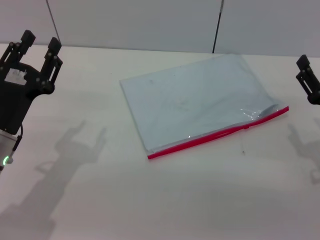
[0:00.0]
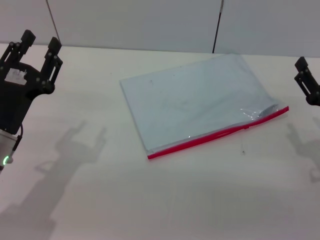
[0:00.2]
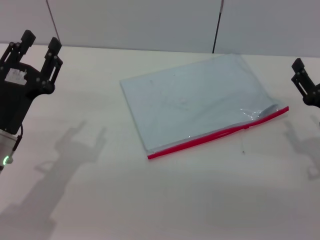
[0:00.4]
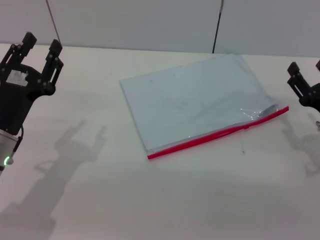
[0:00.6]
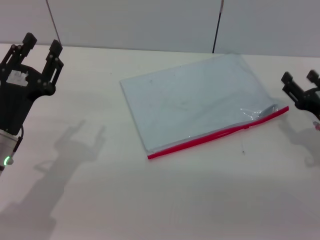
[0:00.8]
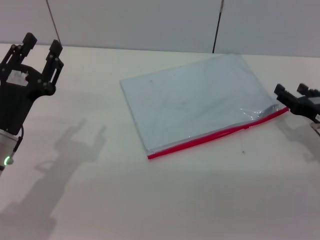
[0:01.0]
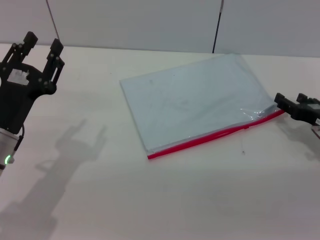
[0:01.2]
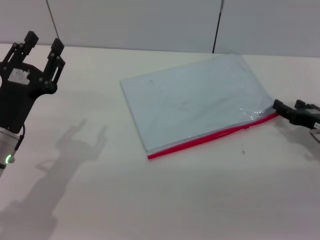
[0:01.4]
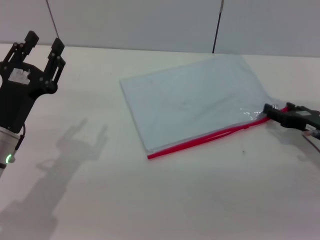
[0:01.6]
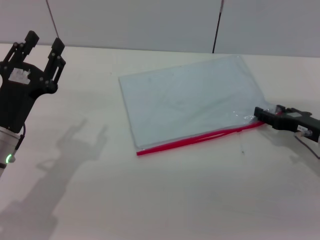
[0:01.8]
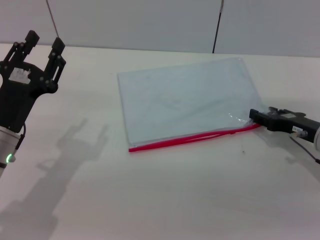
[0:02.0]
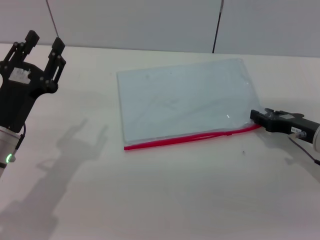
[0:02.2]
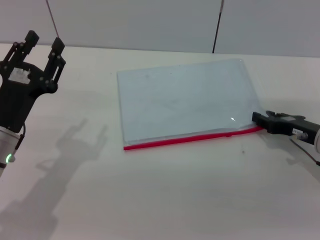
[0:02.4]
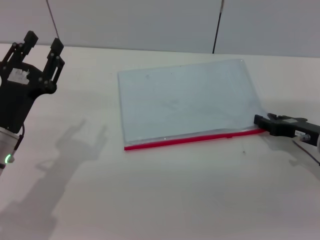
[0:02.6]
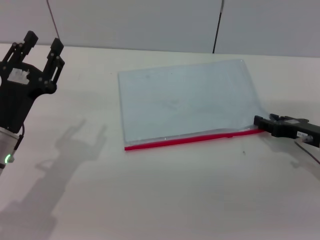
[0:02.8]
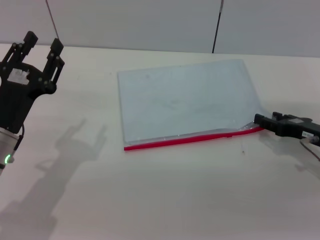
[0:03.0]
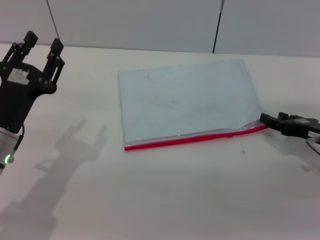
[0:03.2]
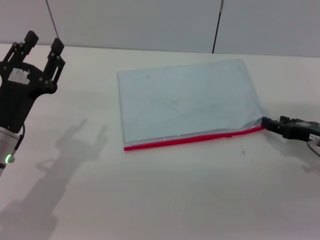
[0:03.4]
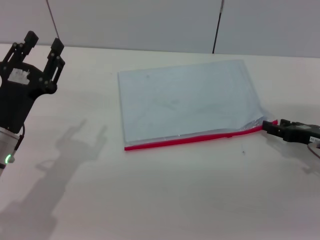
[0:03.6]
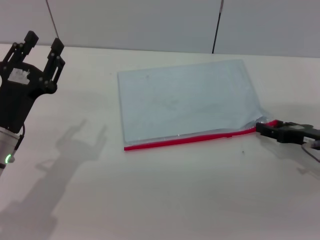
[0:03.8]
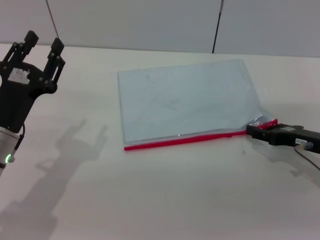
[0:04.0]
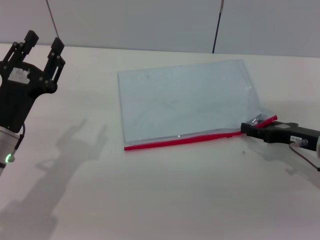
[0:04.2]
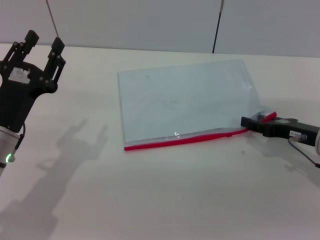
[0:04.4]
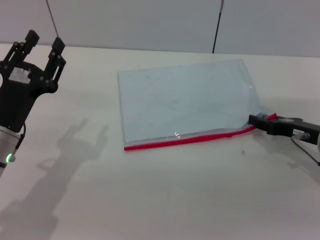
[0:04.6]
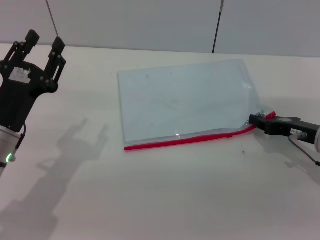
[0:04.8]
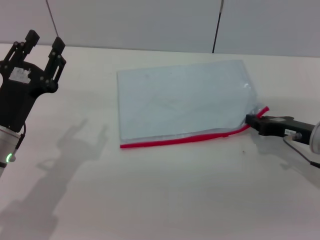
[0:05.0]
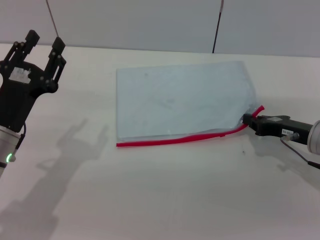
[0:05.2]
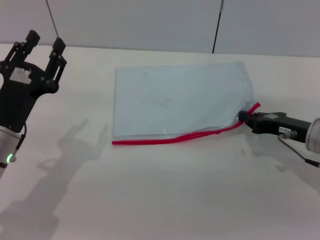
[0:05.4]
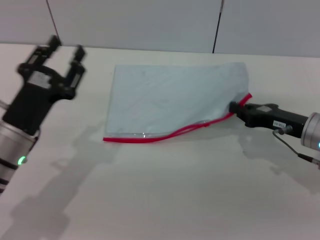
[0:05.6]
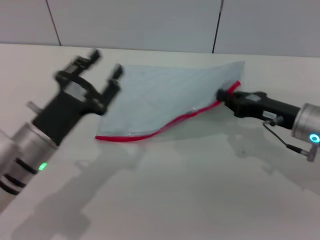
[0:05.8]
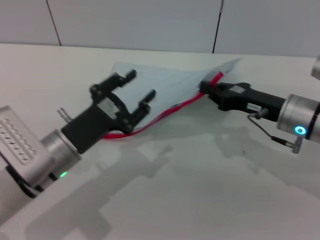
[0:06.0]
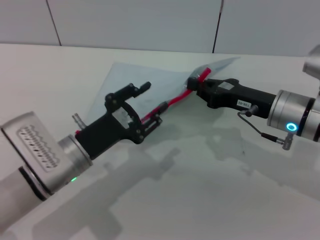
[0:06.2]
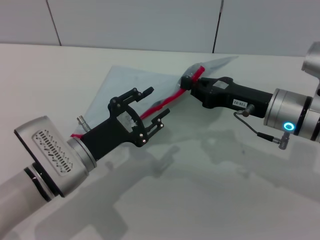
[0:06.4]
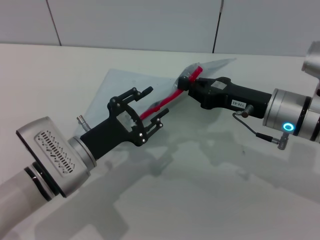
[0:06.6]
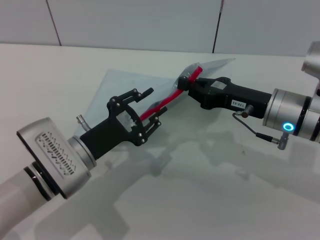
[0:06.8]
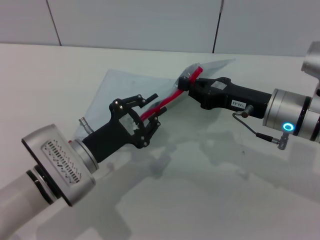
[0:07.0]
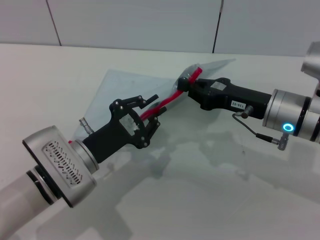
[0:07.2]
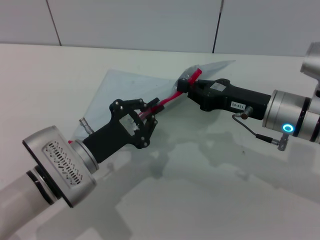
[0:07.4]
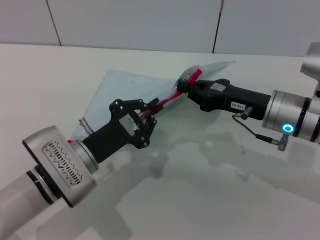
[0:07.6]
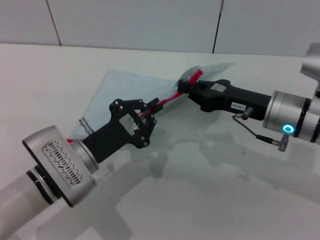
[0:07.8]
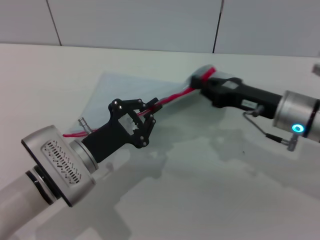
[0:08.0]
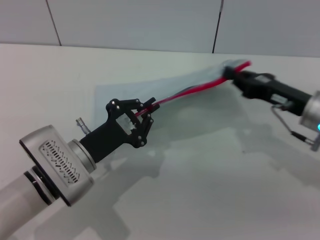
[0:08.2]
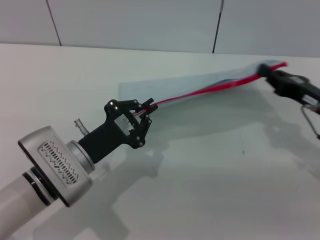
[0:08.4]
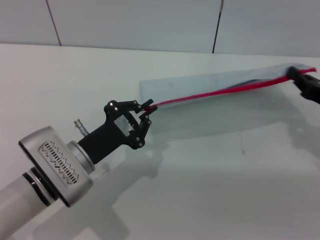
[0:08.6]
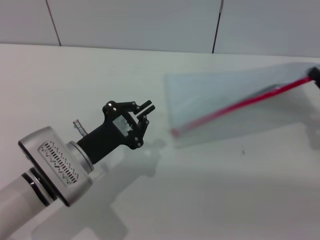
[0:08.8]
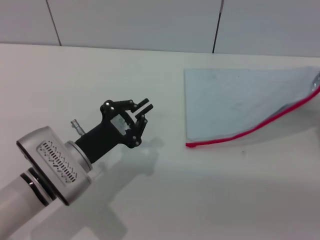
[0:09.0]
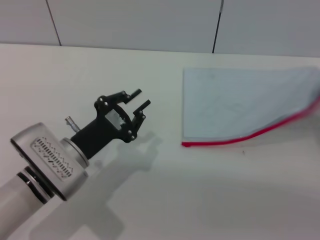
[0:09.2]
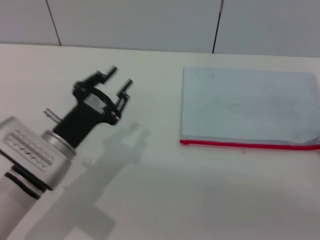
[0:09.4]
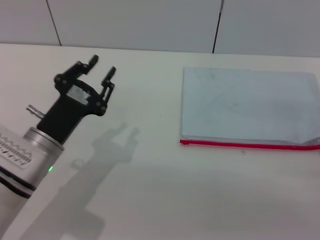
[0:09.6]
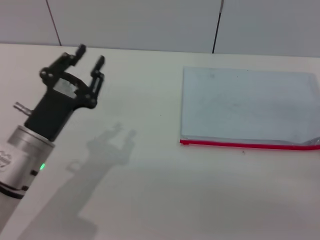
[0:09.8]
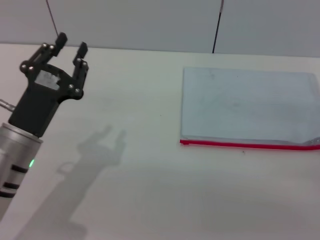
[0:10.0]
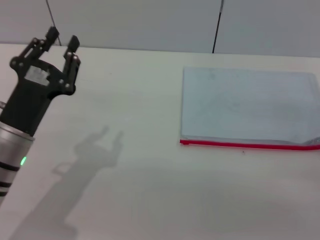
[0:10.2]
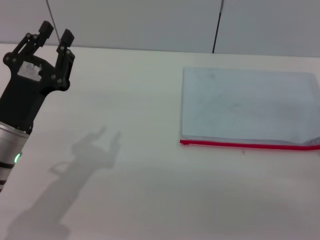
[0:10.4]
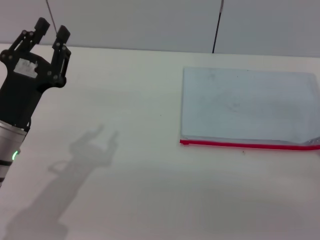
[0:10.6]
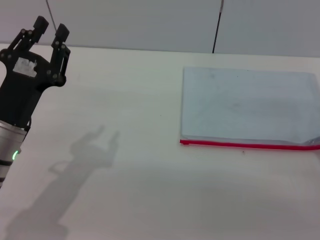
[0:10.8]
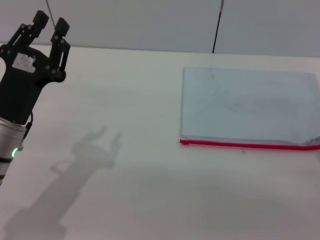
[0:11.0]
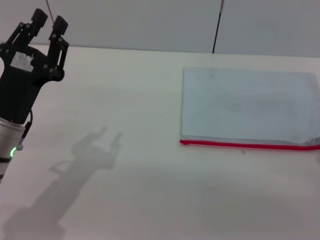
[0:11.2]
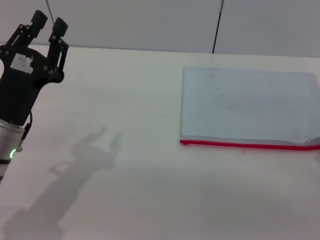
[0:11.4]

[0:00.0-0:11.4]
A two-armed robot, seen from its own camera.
Step, 0:00.0 to 0:06.0: Pick up the transparent plastic bag with the right gripper.
Step, 0:09.0 to 0:09.6: Place the transparent plastic bag.
0:00.0 to 0:01.4: The right gripper moves forward, roughly 5 cm.
0:01.4 to 0:04.2: The grippers make only small movements.
0:04.2 to 0:05.6: The right gripper closes up.
0:05.6 to 0:07.2: The left gripper goes some 5 cm to the right, and closes. Meanwhile the right gripper is displaced to the left by approximately 5 cm.
0:07.2 to 0:08.6: The right gripper is displaced to the right by some 15 cm. Meanwhile the left gripper closes its fingers.
0:08.6 to 0:10.0: The left gripper ends up approximately 5 cm from where it was, and opens its fingers, while the right gripper heads backward, covering some 10 cm, and opens.
0:10.0 to 0:11.4: The grippers move only a little.

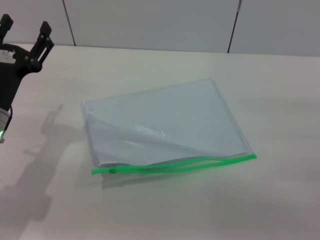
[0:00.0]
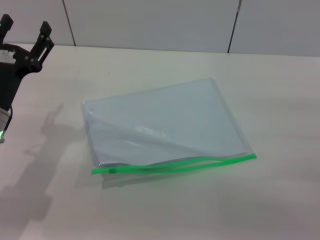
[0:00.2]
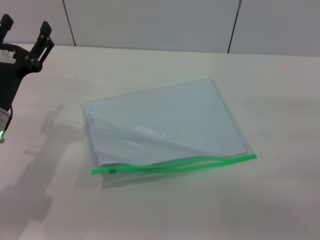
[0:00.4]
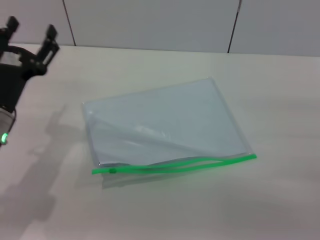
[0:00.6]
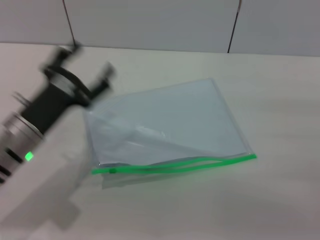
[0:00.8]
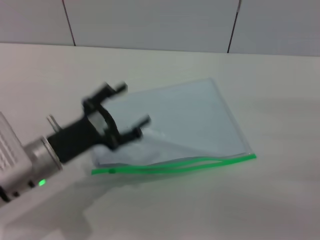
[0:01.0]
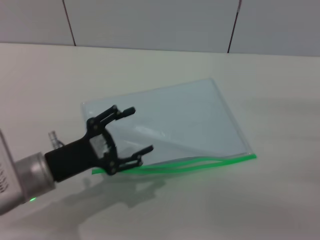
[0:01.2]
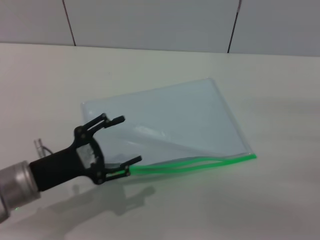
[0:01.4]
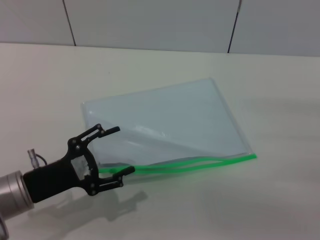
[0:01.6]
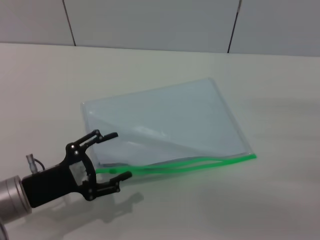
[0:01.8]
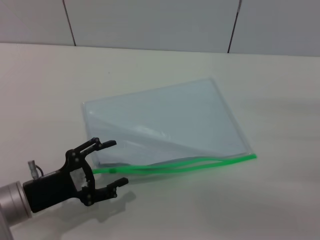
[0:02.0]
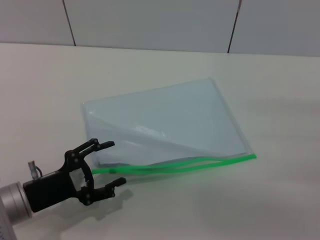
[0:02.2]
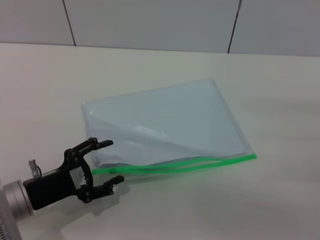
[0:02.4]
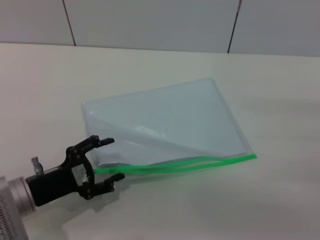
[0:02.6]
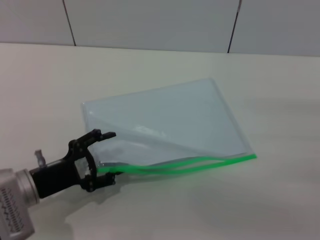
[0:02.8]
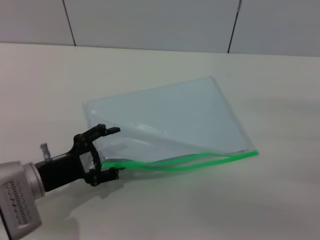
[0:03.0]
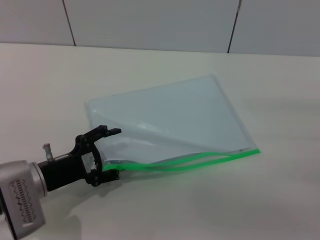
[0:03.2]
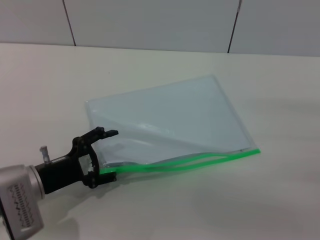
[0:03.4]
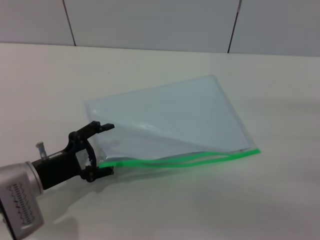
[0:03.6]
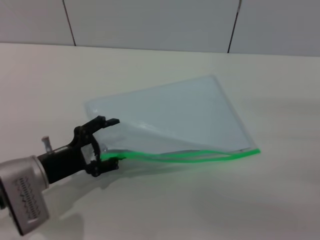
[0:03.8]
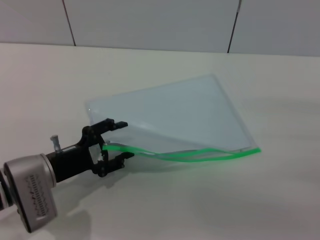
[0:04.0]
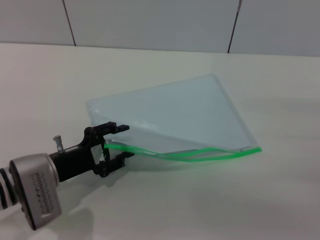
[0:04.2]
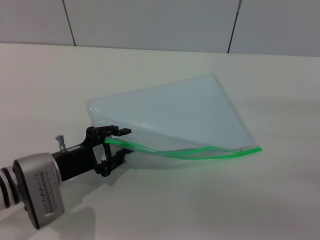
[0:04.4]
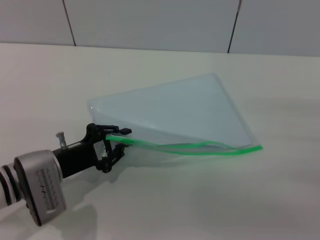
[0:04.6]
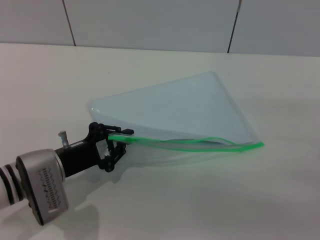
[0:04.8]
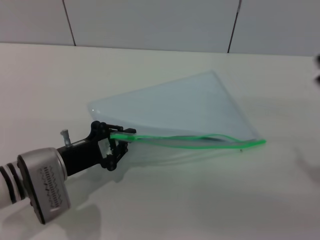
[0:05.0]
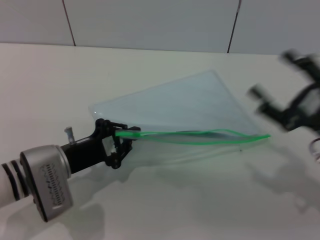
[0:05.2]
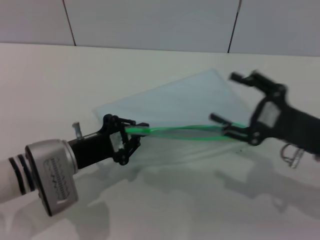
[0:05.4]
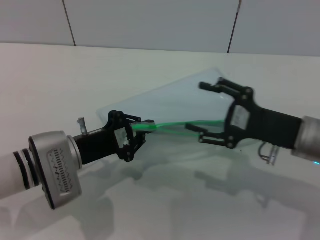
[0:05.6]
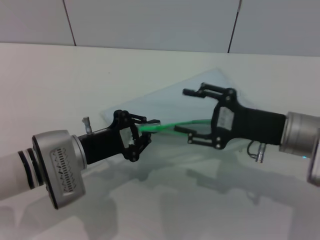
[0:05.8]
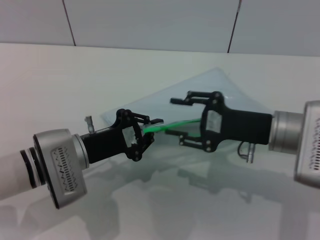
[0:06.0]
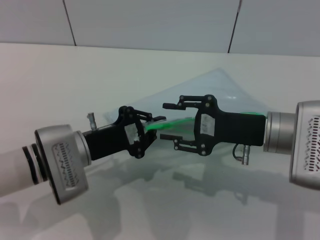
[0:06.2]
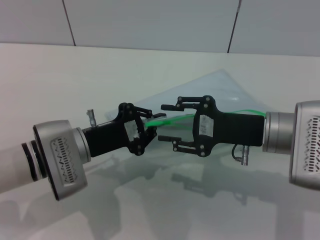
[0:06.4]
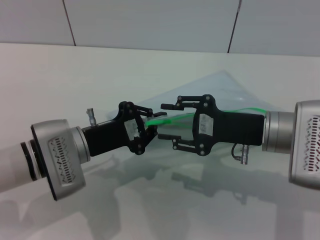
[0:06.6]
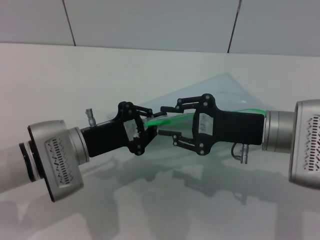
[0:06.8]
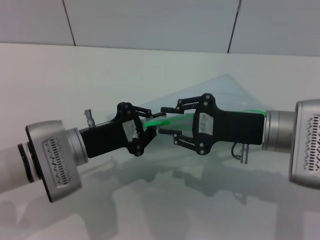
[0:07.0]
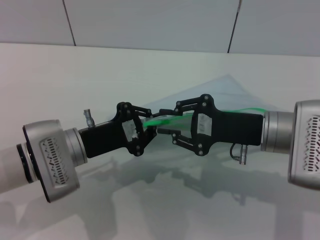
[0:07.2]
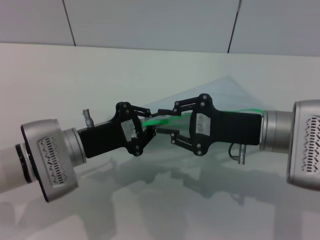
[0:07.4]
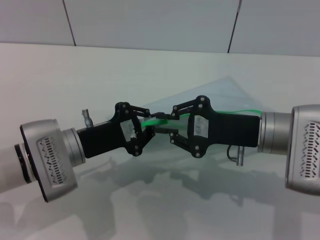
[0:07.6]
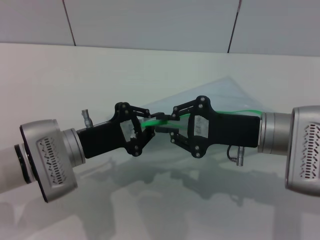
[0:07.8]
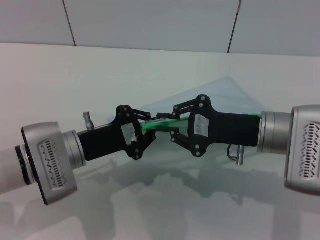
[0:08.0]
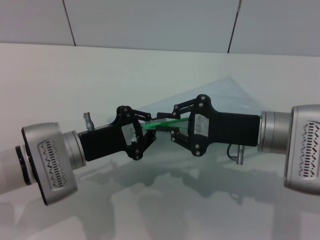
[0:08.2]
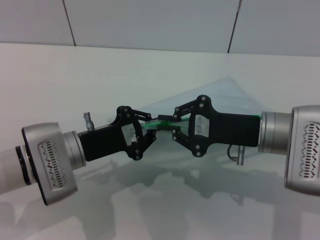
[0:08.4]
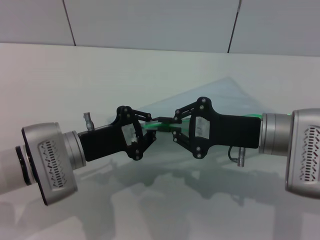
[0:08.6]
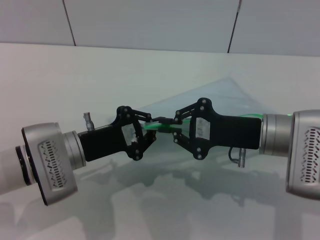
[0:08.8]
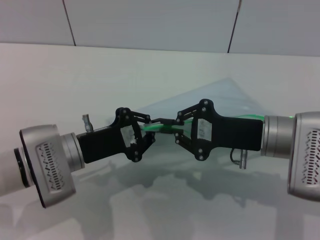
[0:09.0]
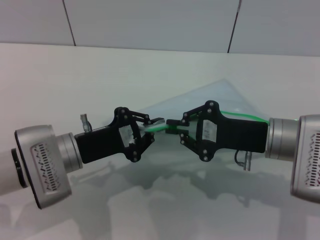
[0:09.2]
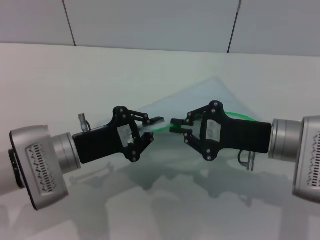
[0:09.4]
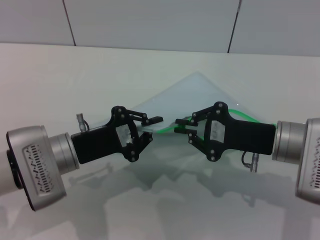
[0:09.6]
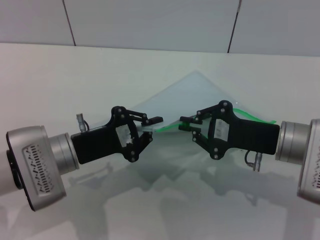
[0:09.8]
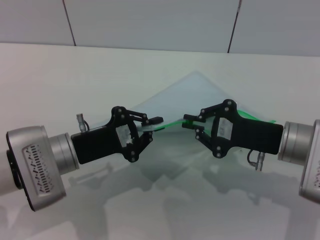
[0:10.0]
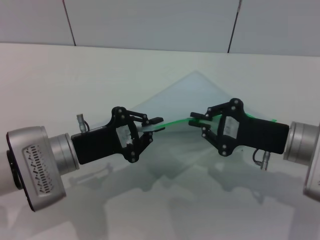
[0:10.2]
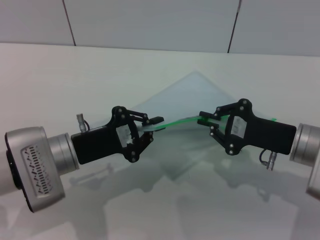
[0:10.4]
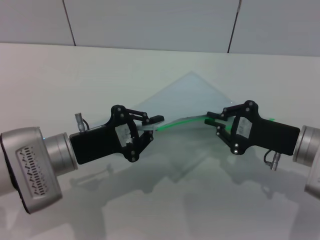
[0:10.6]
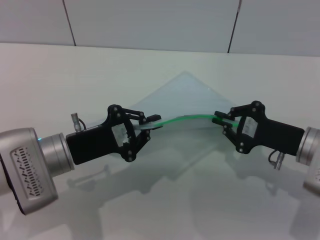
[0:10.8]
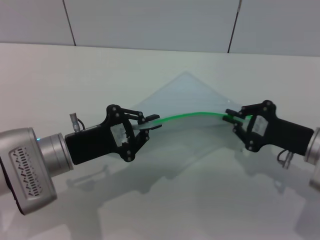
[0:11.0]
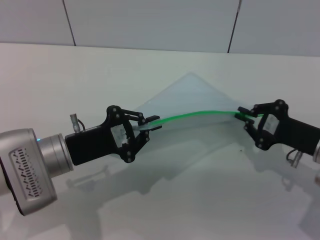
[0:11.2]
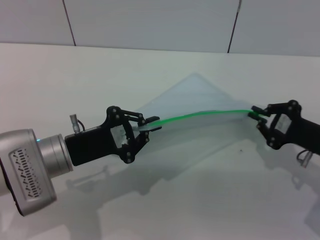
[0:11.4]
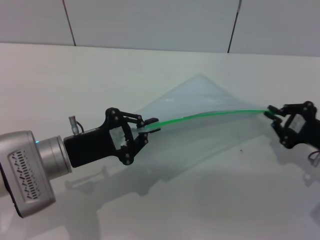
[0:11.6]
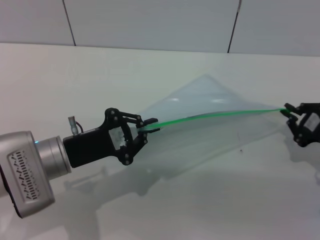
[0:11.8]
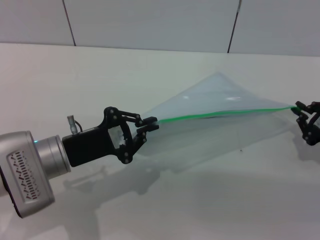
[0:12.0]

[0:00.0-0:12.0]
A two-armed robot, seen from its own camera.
Step, 0:00.0 to 0:05.0: Pick up the transparent plastic bag with the left gripper.
0:00.0 to 0:01.6: The left gripper shifts some 5 cm backward.
0:01.6 to 0:03.0: There are only small adjustments of the grippers.
0:03.0 to 0:04.4: The grippers stay close to where they were, moving slightly.
0:04.4 to 0:06.0: The right gripper moves to the left and forward, some 15 cm, while the left gripper shifts by roughly 5 cm, and closes up.
0:06.0 to 0:07.6: The right gripper closes.
0:07.6 to 0:09.0: Neither gripper changes place.
0:09.0 to 0:10.4: The right gripper ends up some 5 cm from where it was.
0:10.4 to 0:12.0: The right gripper heads to the right, covering approximately 10 cm.
